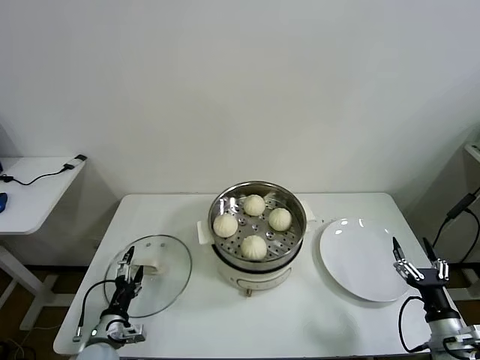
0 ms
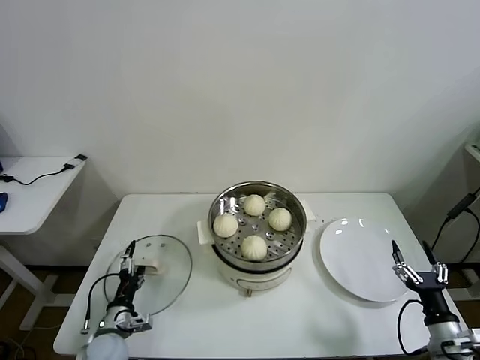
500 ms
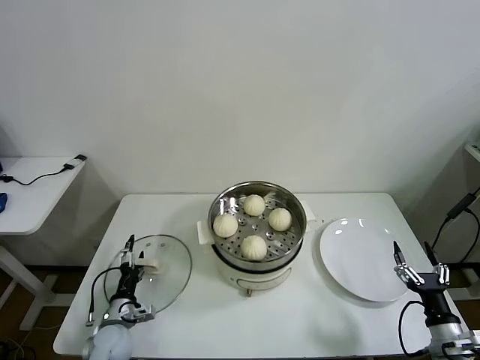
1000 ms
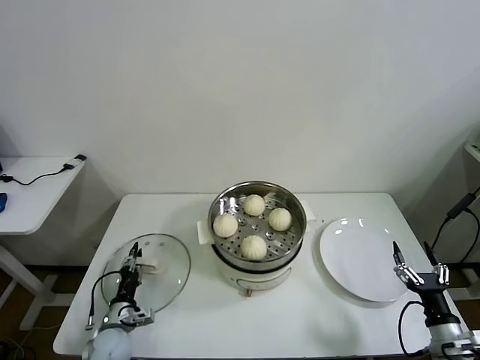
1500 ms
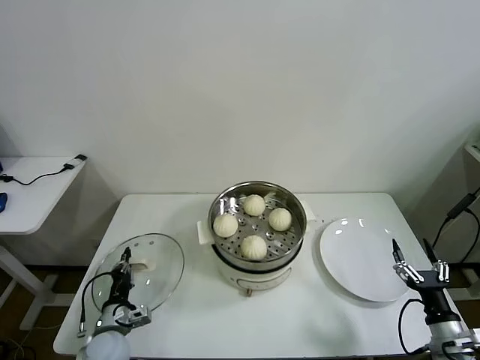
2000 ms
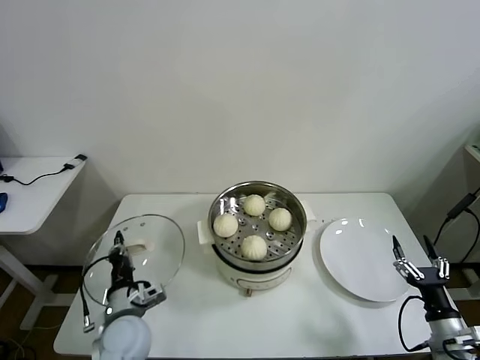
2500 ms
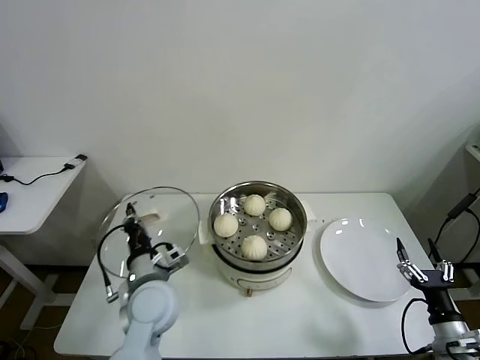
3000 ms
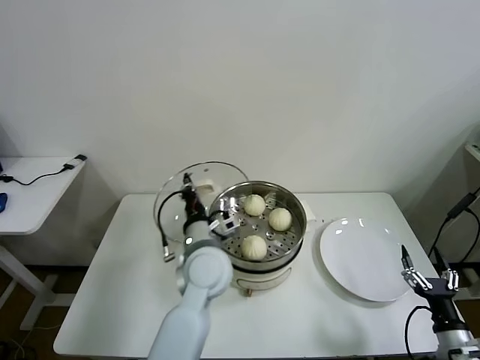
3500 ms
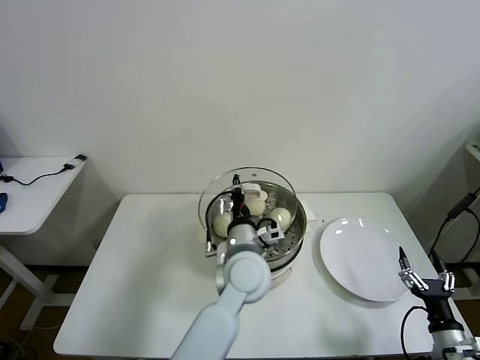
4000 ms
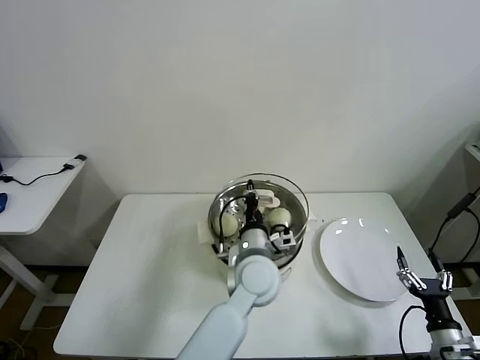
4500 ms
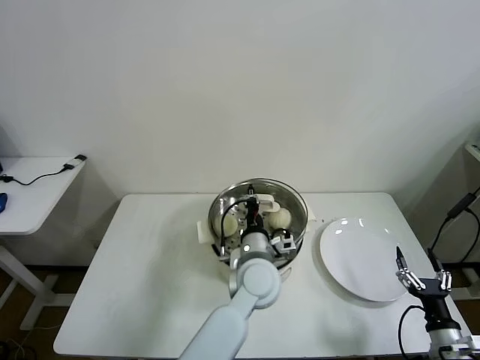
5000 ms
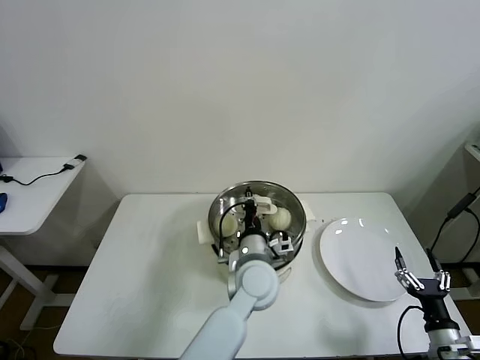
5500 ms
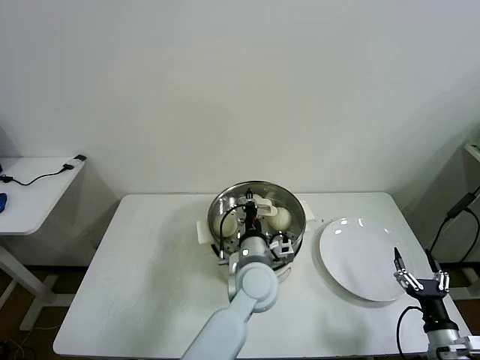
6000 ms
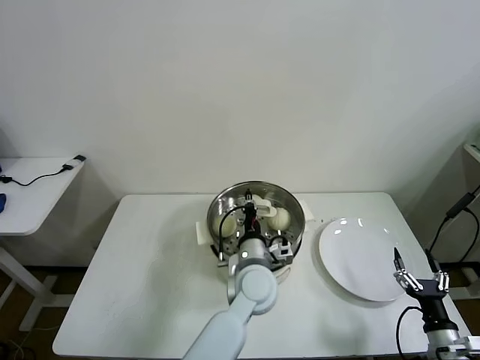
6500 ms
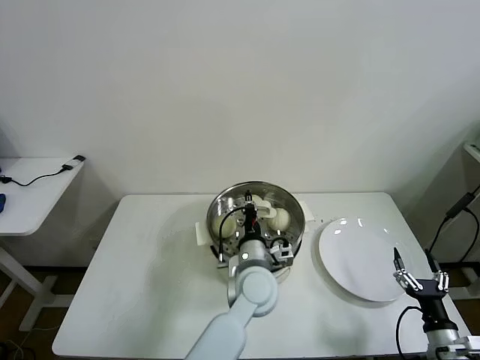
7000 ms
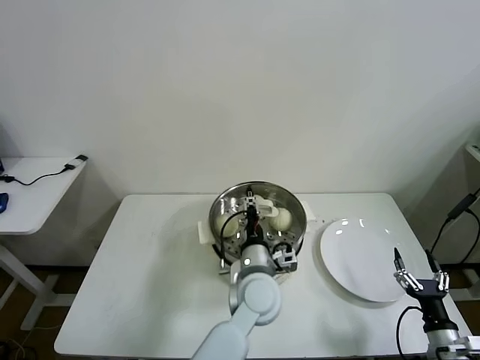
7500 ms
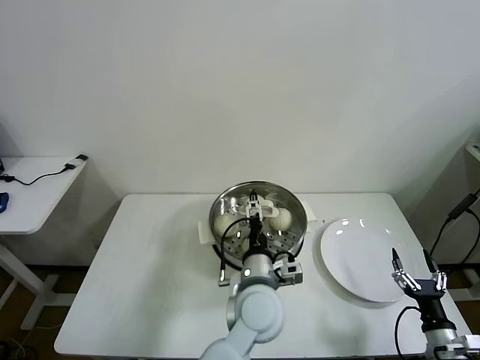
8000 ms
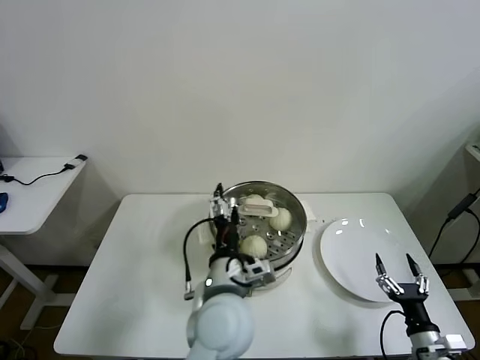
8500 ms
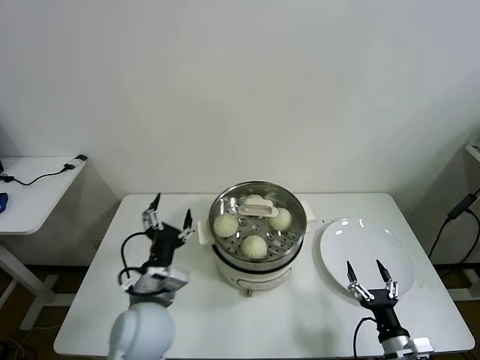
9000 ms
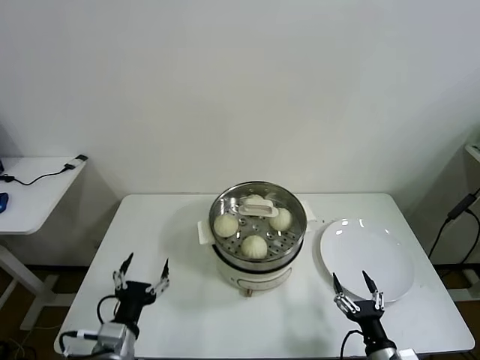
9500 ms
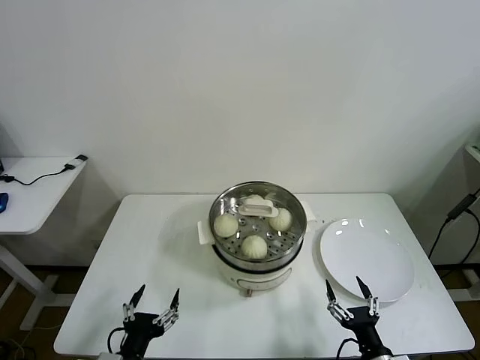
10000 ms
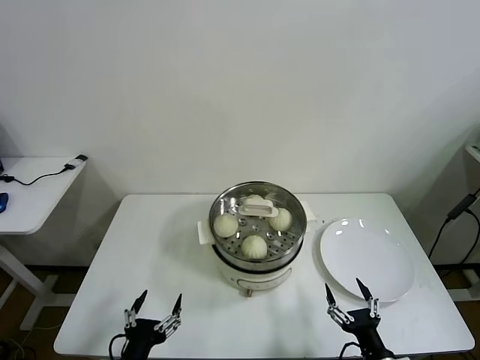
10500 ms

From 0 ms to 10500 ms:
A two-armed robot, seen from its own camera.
Task of the whole recording: take steamed baozi put them in steamer then cover it.
Step, from 2500 ms to 7500 ms: Place the pot lid on the steamer with left gripper.
From 0 ms to 2000 ms: The left gripper closes.
From 2000 ms to 4000 ms: The left gripper heads to the right and upward, covering about 35 cm.
From 4000 ms to 6500 ms: The left gripper shifts roughly 5 cm downward.
From 6500 ms to 8500 ms: The left gripper moves backward and upward, some 10 cm, and opens up.
From 8500 ms to 10500 ms: The left gripper shifts approximately 30 cm to the left, backward and downward, while the right gripper heads to the left and backward, covering roughly 10 cm.

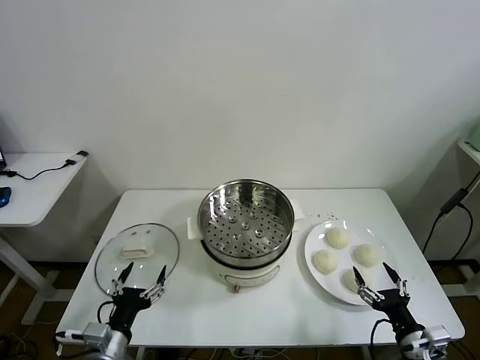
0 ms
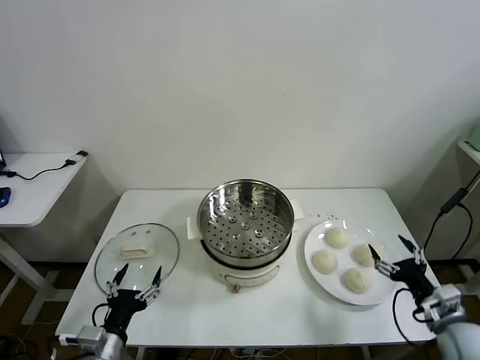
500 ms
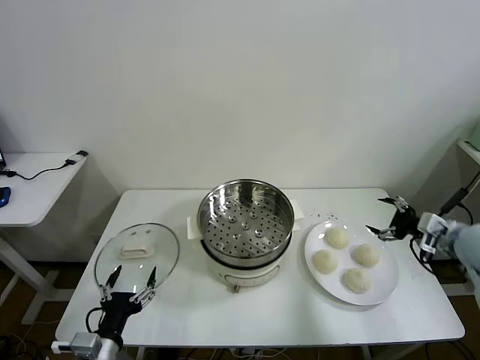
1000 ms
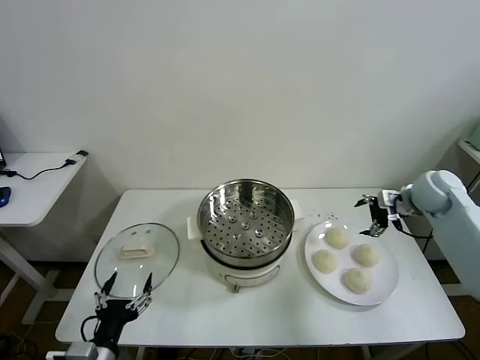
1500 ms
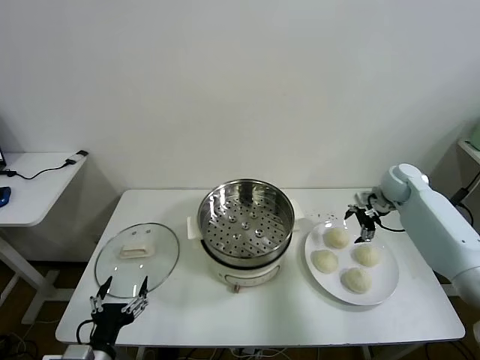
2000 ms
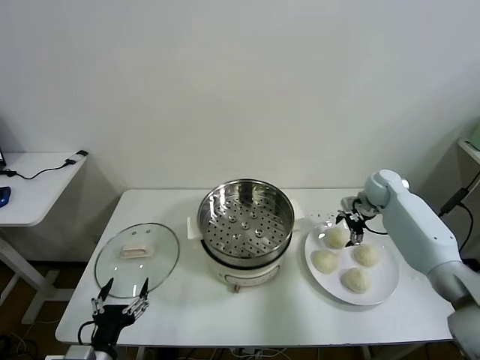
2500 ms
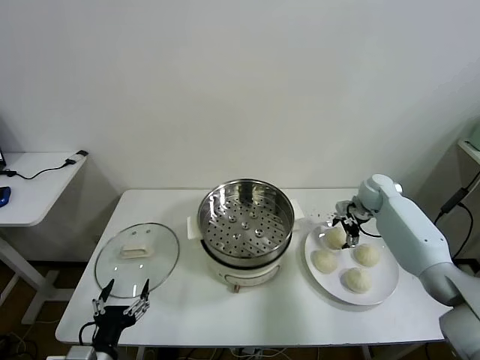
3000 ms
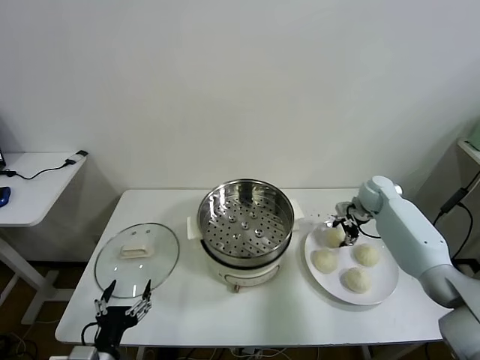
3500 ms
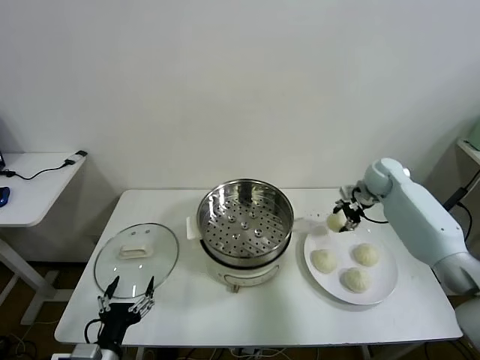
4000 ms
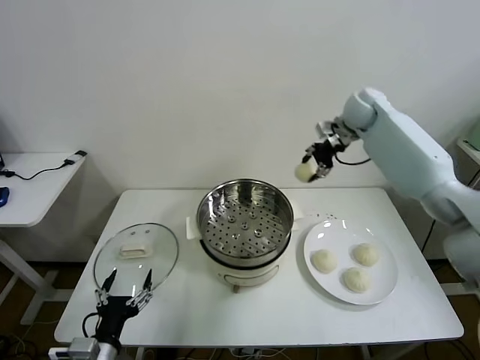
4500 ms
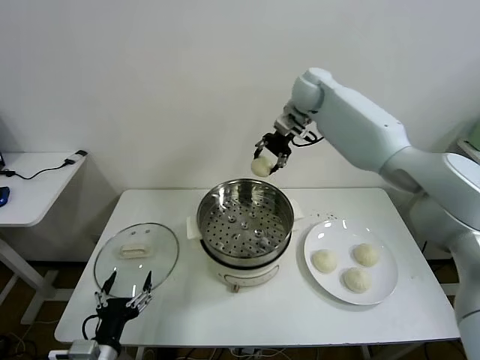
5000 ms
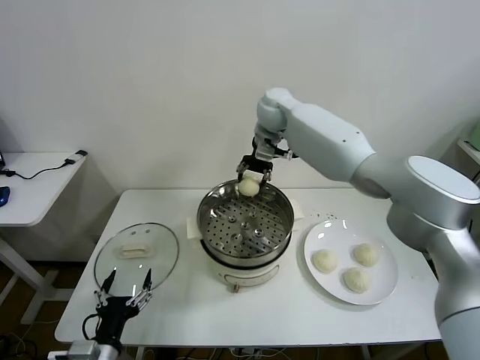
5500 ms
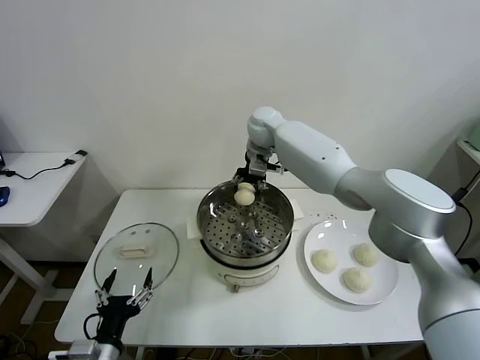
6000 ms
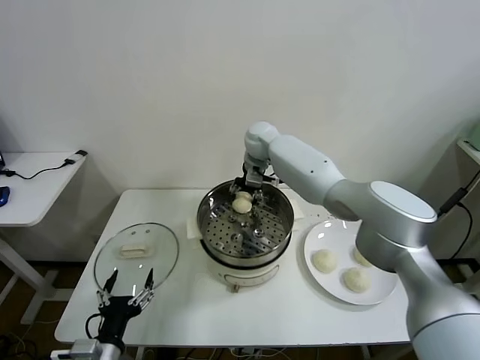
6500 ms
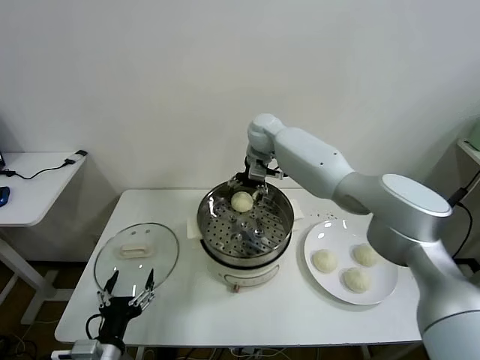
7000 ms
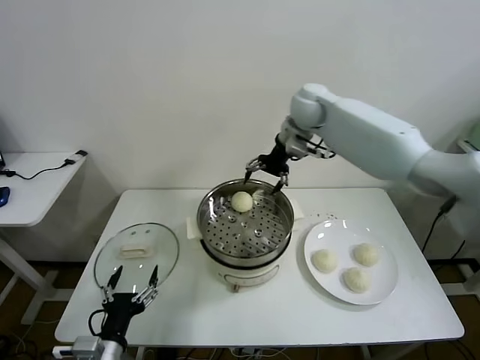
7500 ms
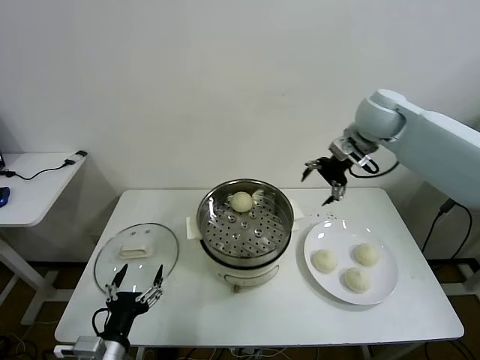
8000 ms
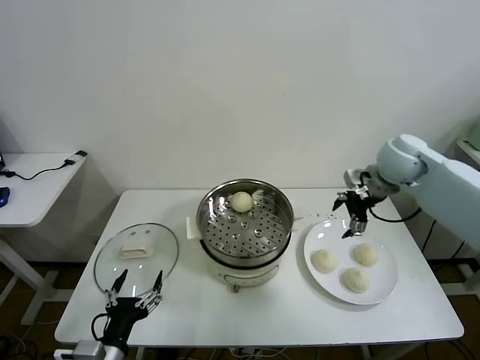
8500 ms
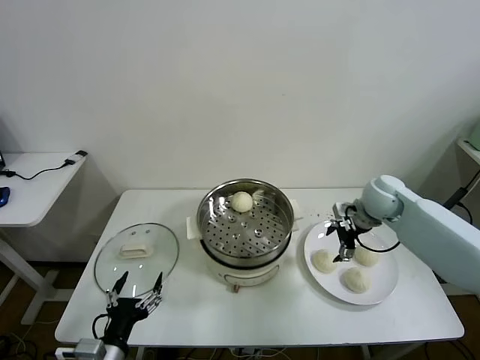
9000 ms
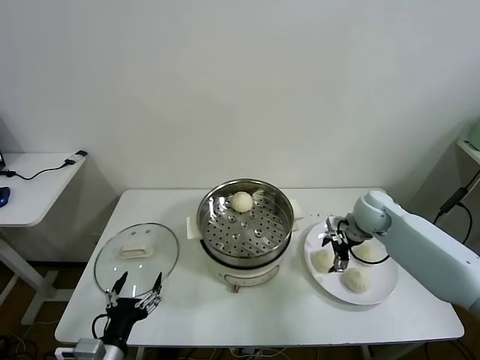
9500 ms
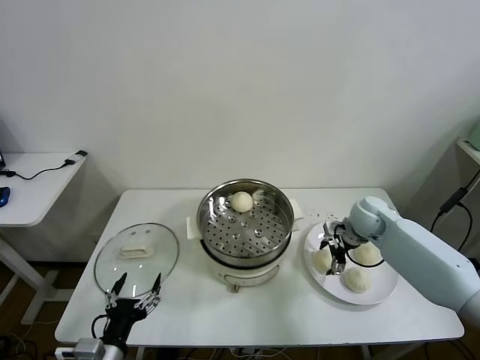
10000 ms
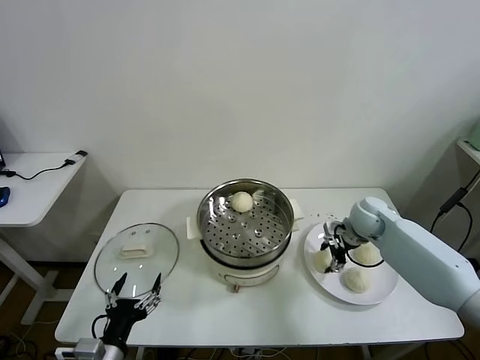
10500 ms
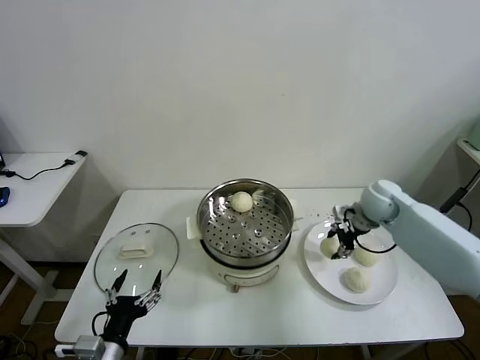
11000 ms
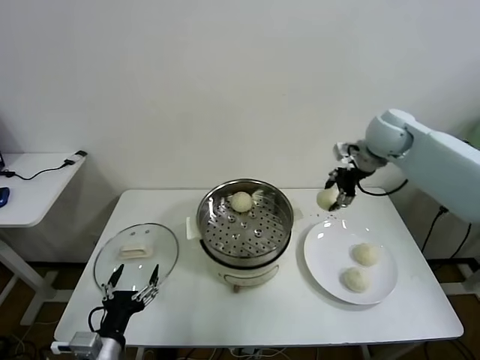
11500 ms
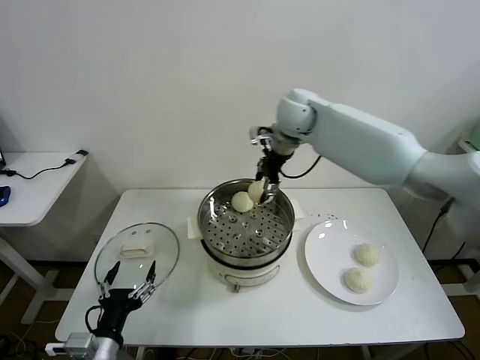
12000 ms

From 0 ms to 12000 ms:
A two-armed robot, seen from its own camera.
Task of the whole recording: take steamed baozi put them in steamer then cover it.
Step, from 0 ms to 3500 ms: Grasp the baozi in the plate with right gripper.
Step, from 4000 ms to 7000 ms: Place the baozi on the steamer with right gripper.
Step, from 7500 ms to 10500 ms: Grasp the baozi in the plate with right gripper.
From 2000 ms to 4000 ms: The right gripper ends up about 5 cm from where it was, and closes its fingers.
From 4000 ms to 6000 ms: The right gripper moves to the left, about 30 cm.
From 6000 ms to 8000 ms: The right gripper goes some 25 cm to the right and backward, and opens.
From 8000 ms to 10000 ms: The right gripper goes some 25 cm downward.
From 10000 ms to 12000 ms: The right gripper goes about 35 cm upward and to the left, and closes.

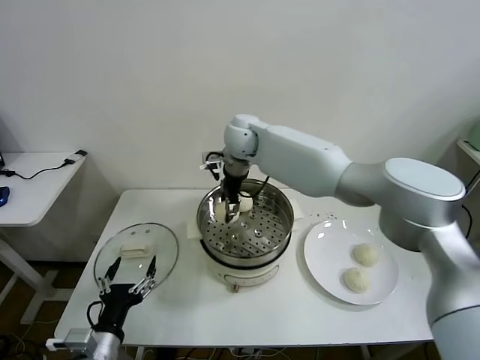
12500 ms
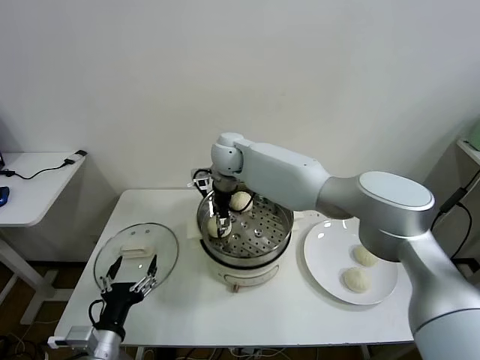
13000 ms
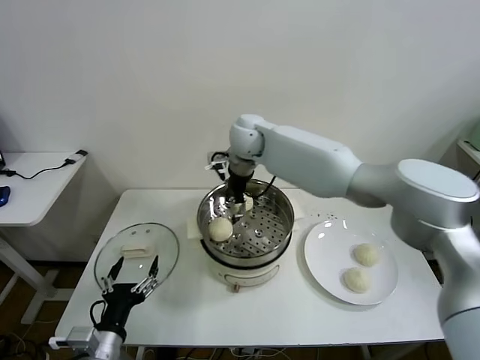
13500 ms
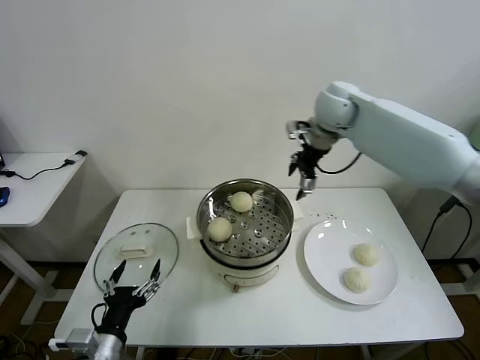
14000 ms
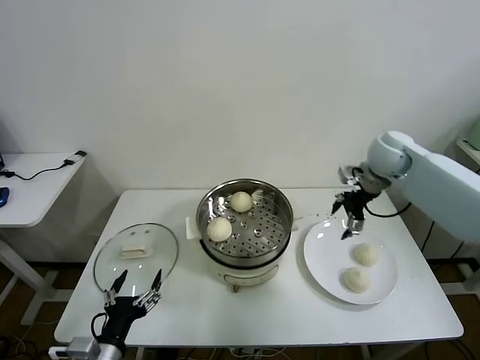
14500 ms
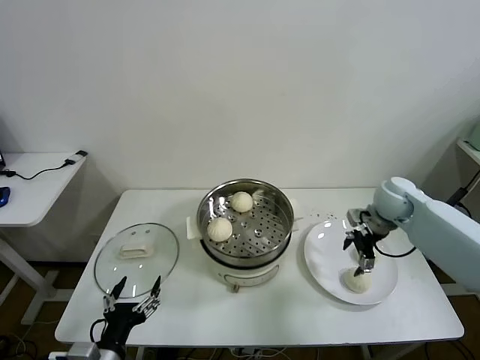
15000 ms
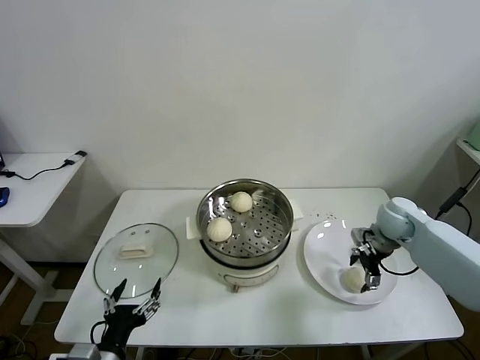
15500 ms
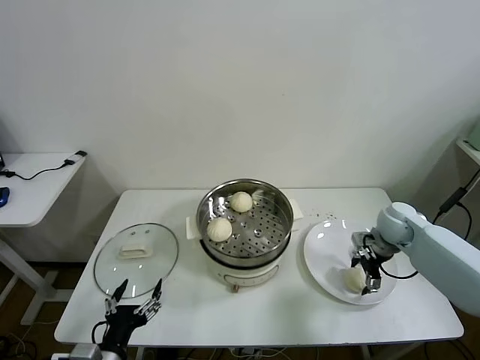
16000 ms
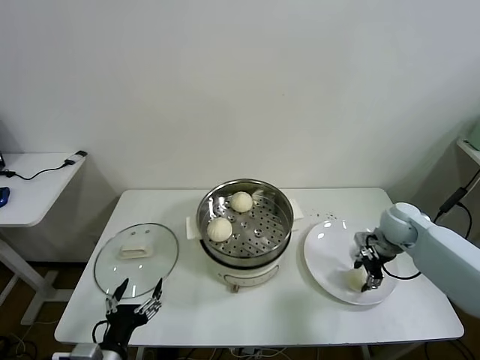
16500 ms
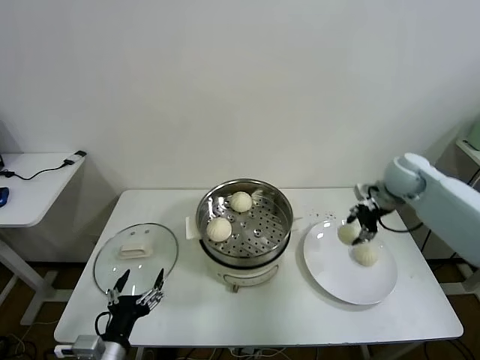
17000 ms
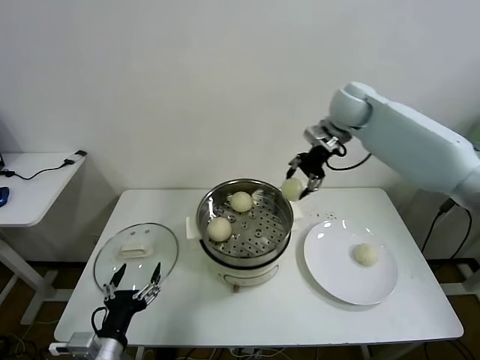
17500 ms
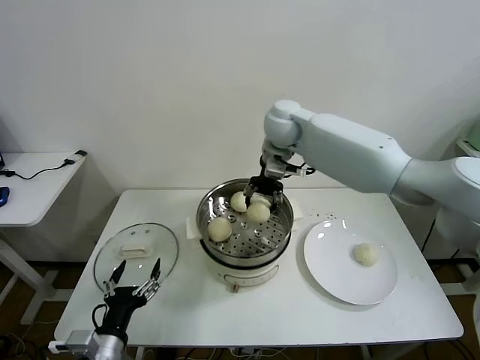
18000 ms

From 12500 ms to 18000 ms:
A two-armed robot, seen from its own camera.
Task of the whole recording: take steamed baozi put them in steamer then cover it.
Step, from 14000 ms to 16500 ms: Grasp the baozi in the plate with right gripper.
From 12500 ms to 14500 ms: The right gripper travels to the right by some 35 cm, and opens its fingers.
From 14500 ms to 16000 ms: The right gripper is displaced downward by approximately 15 cm.
From 16000 ms to 18000 ms: The right gripper goes roughly 35 cm to the left and upward, and closes its fingers.
